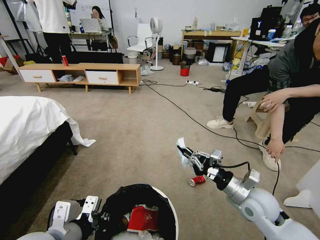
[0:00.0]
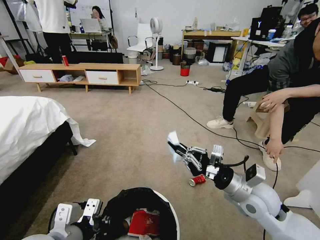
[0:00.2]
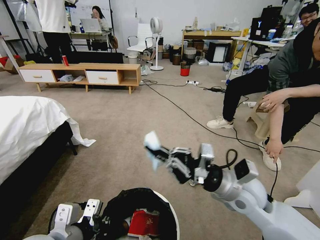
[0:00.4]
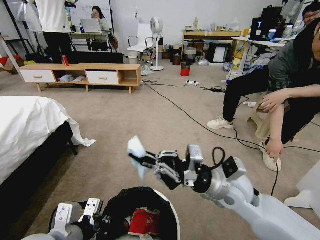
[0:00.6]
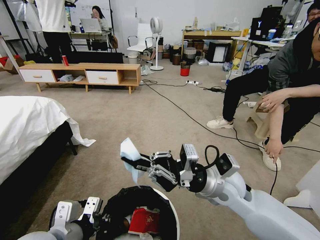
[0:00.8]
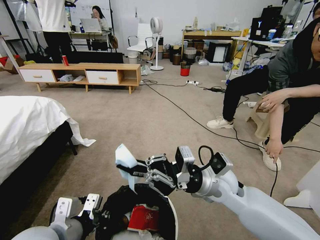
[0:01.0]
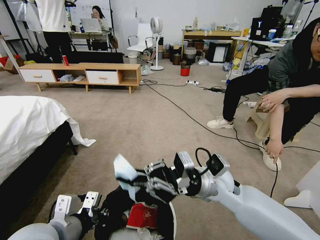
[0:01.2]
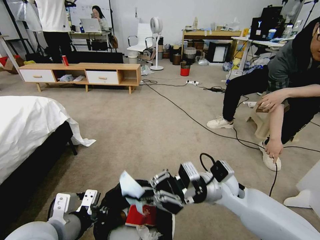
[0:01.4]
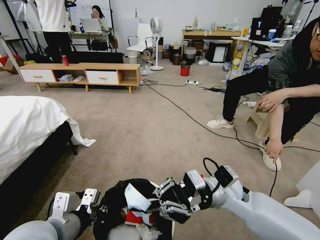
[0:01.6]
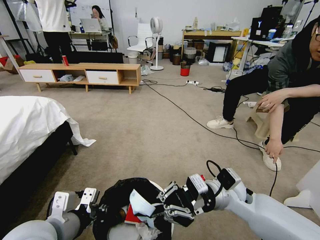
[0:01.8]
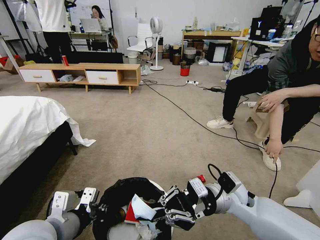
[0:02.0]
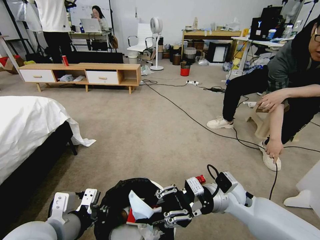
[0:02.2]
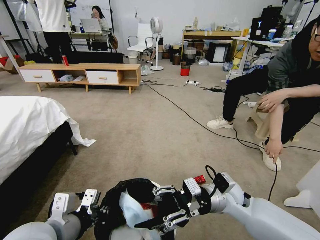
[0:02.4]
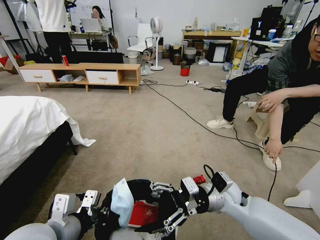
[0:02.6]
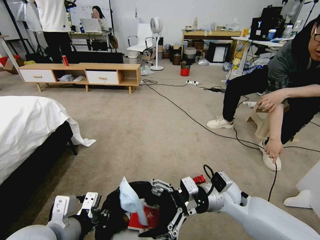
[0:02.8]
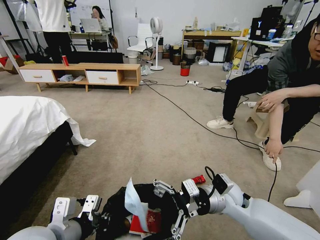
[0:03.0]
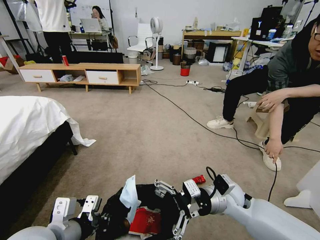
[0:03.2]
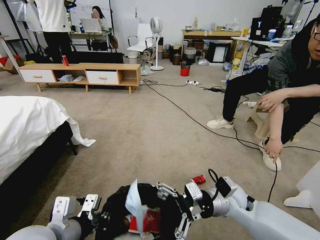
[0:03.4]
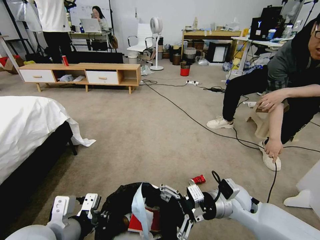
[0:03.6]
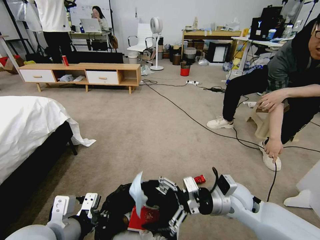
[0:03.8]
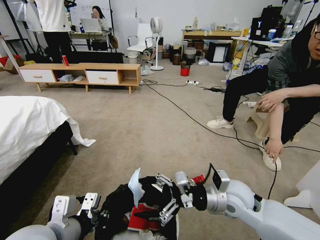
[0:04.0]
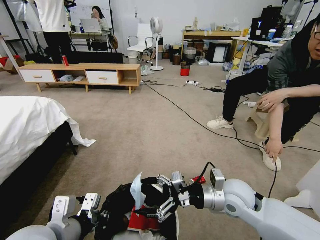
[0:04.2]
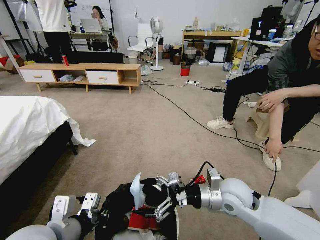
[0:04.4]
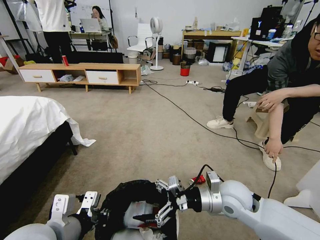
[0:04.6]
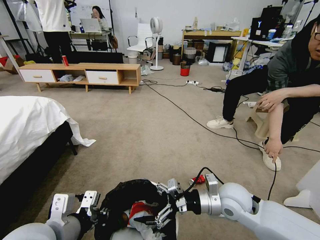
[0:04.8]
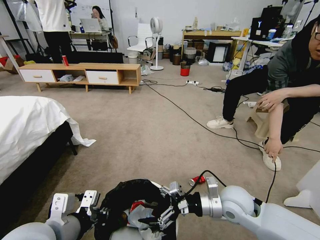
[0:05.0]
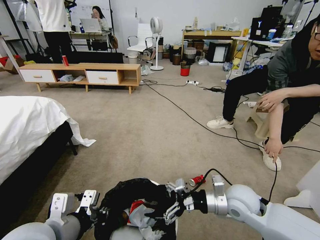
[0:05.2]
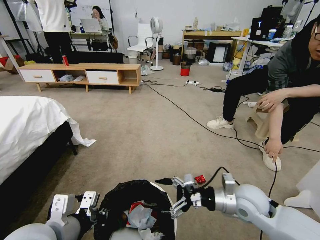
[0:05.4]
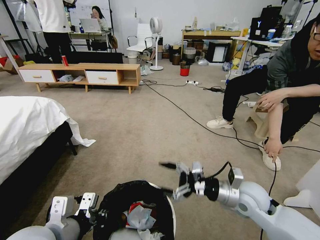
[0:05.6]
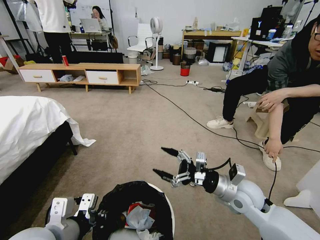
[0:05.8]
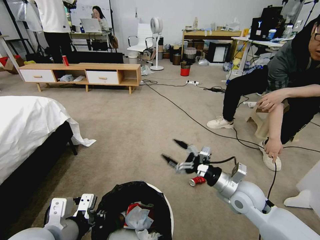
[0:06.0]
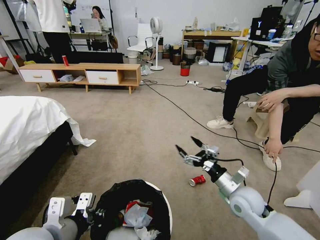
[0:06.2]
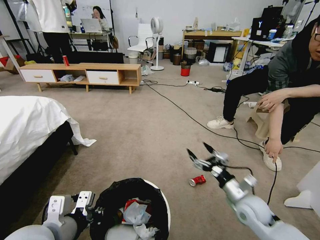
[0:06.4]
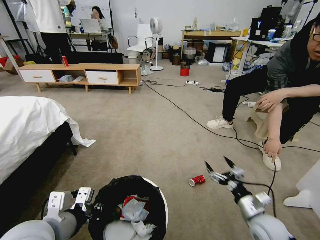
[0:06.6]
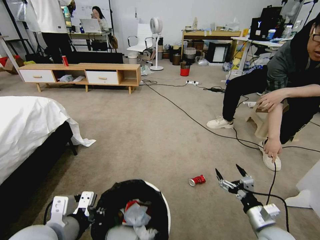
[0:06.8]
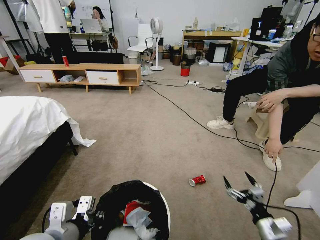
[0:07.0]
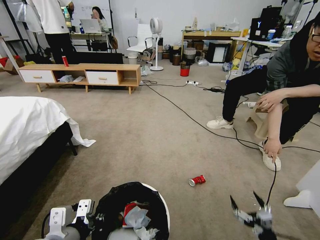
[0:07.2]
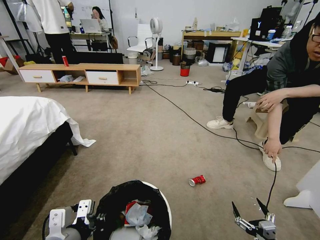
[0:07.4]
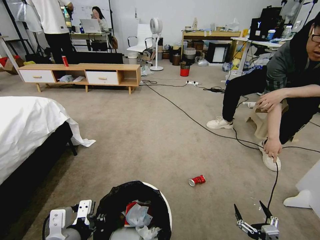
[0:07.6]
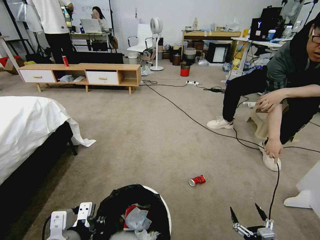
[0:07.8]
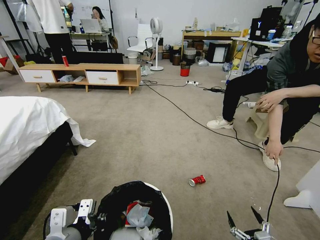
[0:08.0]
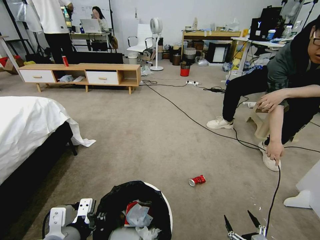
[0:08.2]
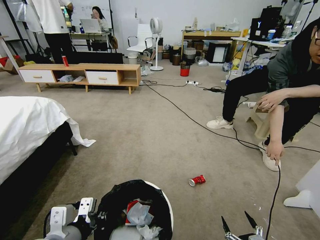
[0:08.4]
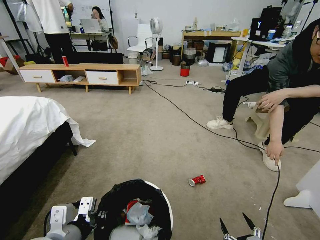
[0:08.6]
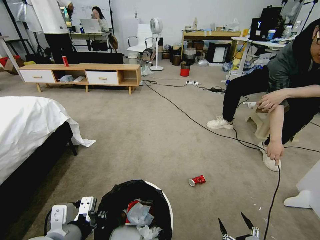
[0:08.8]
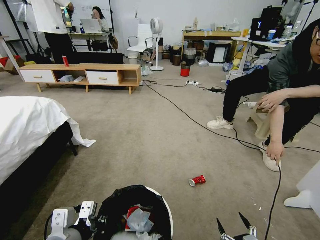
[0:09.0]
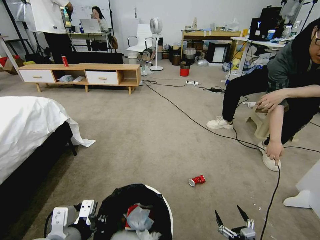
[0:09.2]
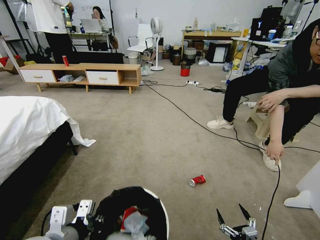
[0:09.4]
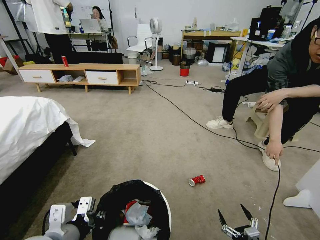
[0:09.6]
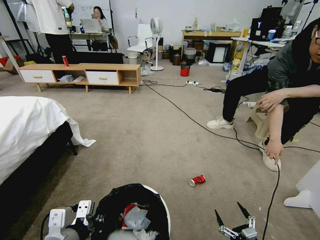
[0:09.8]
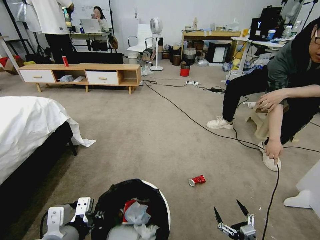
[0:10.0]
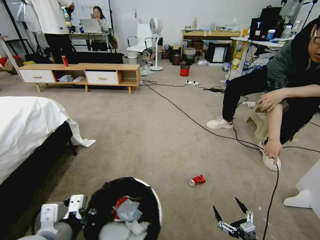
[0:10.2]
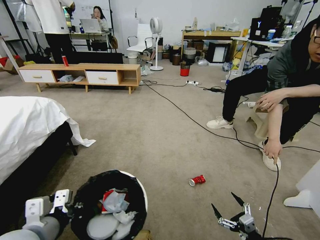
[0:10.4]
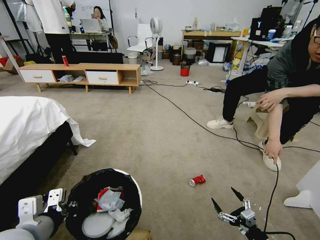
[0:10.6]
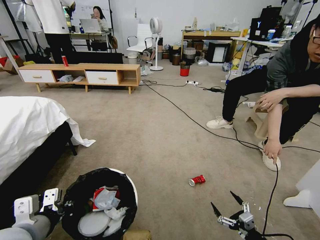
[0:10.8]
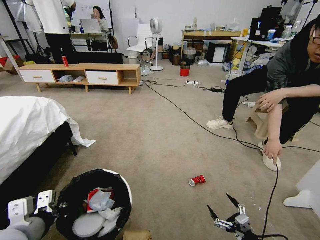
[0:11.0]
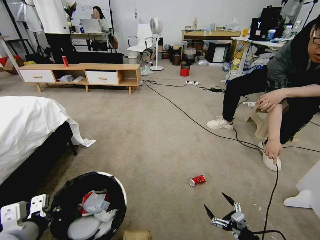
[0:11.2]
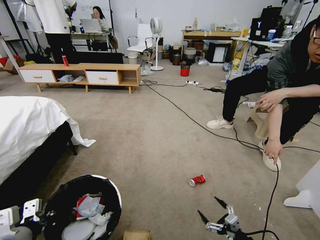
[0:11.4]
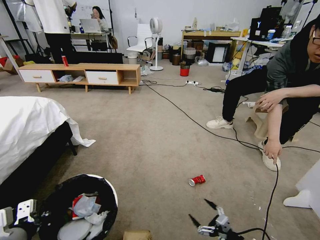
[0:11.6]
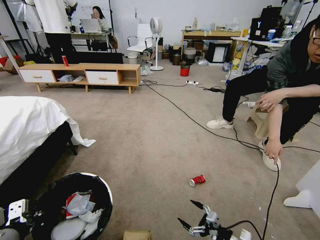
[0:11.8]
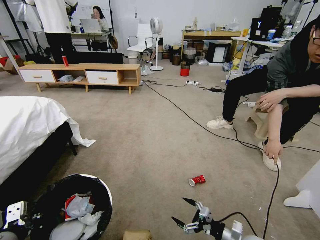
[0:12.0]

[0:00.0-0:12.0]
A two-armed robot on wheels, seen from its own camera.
Task of the whole recording: Pick up the trash bin and place the garbage on the floor into it.
0:00.0 to 0:01.6: The right gripper goes some 10 cm to the left.
0:01.6 to 0:03.0: The right gripper opens its fingers.
0:04.4 to 0:06.0: The right gripper shifts by about 5 cm.
0:06.0 to 0:07.6: The right gripper heads backward, downward and to the right, covering approximately 30 cm.
0:07.6 to 0:09.0: The right gripper moves some 5 cm.
0:09.0 to 0:10.4: The right gripper shifts approximately 5 cm forward.
0:10.4 to 0:12.0: The right gripper heads forward and to the left, covering about 10 cm; the left gripper travels to the left by about 5 cm.

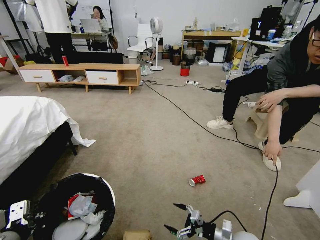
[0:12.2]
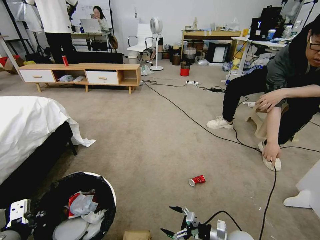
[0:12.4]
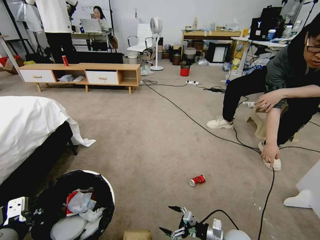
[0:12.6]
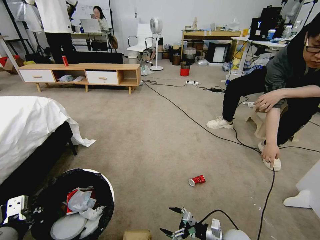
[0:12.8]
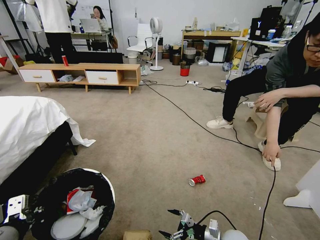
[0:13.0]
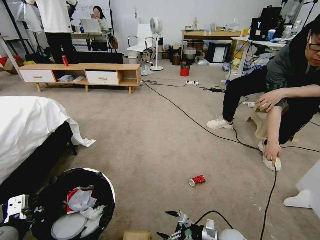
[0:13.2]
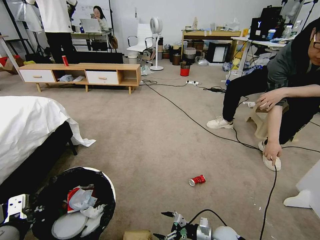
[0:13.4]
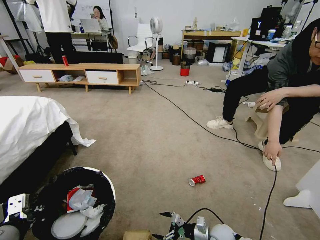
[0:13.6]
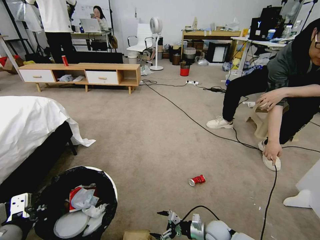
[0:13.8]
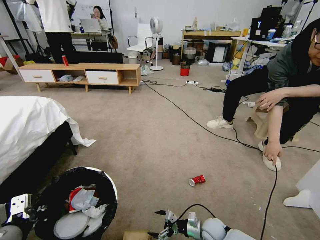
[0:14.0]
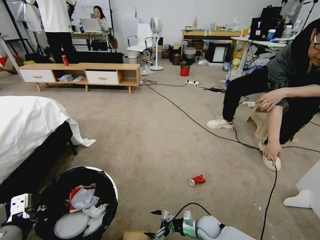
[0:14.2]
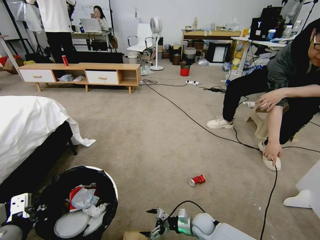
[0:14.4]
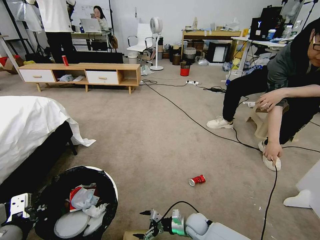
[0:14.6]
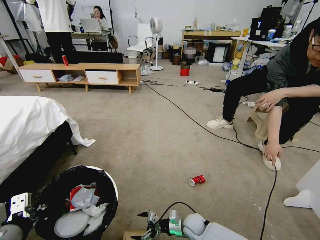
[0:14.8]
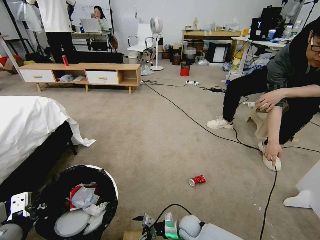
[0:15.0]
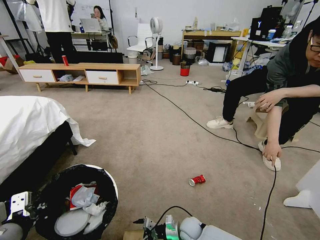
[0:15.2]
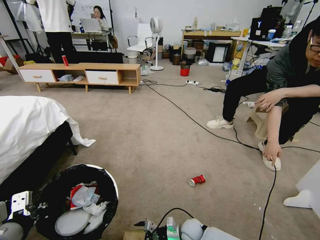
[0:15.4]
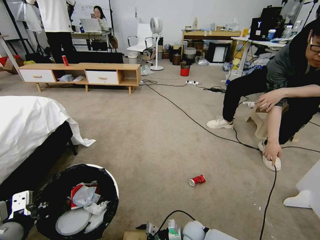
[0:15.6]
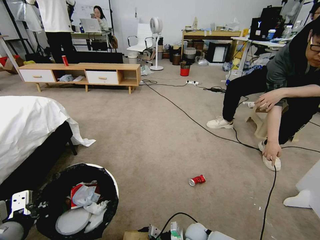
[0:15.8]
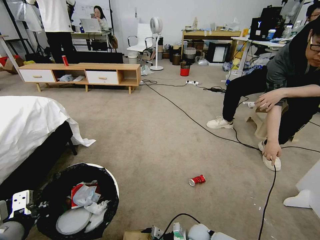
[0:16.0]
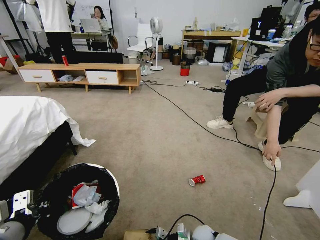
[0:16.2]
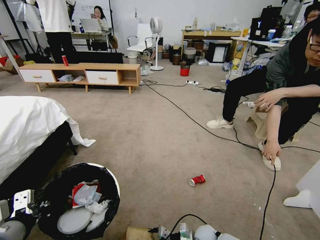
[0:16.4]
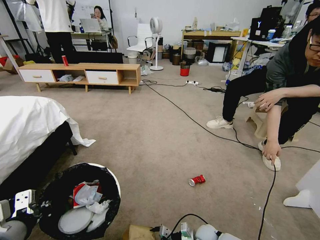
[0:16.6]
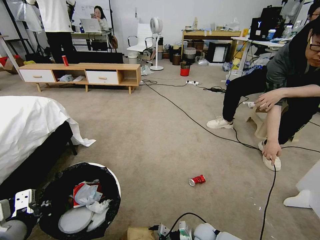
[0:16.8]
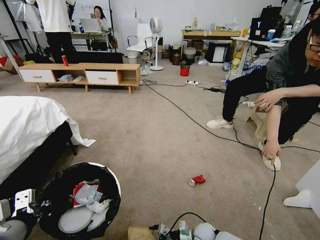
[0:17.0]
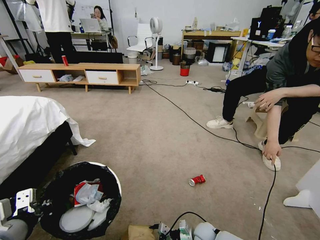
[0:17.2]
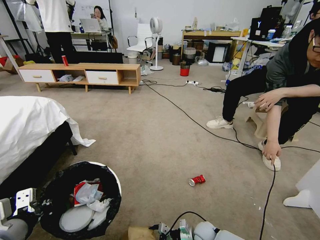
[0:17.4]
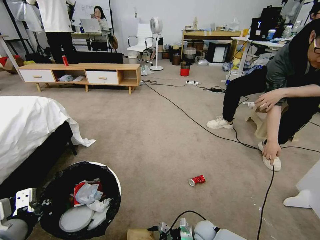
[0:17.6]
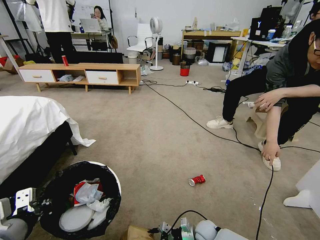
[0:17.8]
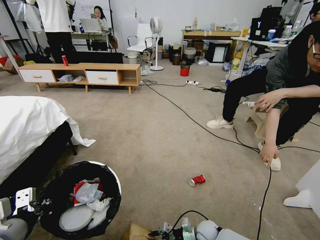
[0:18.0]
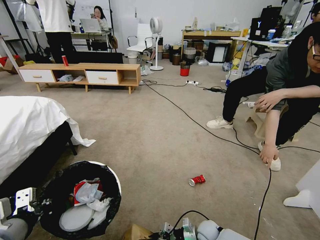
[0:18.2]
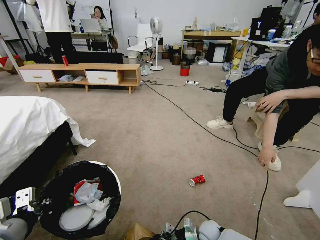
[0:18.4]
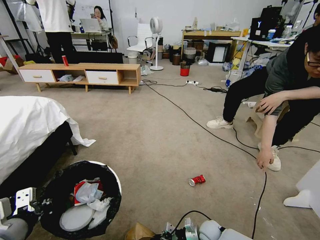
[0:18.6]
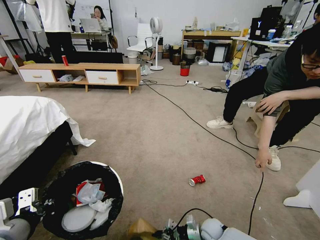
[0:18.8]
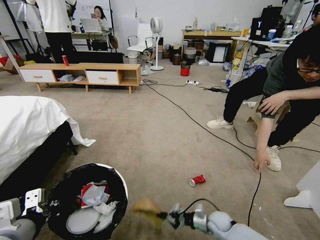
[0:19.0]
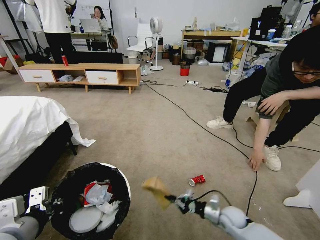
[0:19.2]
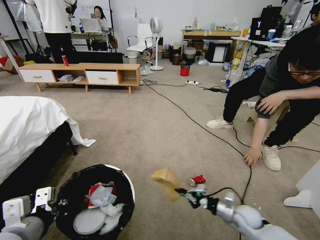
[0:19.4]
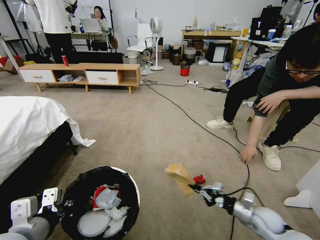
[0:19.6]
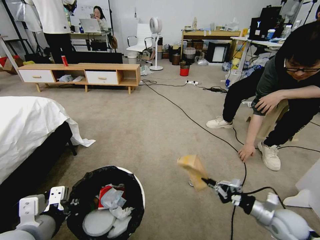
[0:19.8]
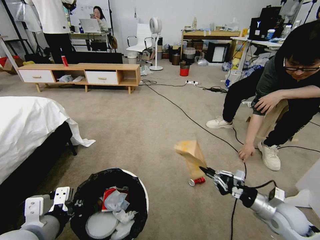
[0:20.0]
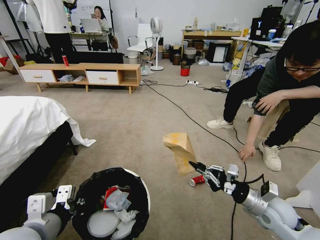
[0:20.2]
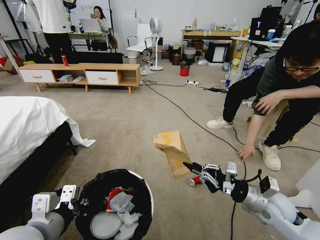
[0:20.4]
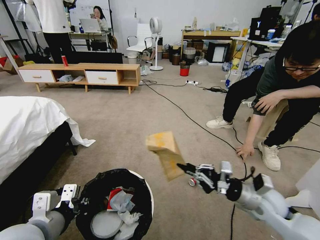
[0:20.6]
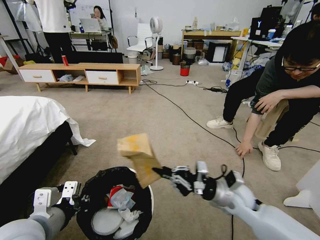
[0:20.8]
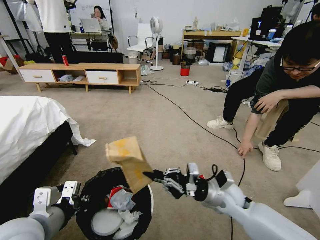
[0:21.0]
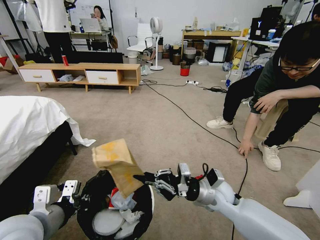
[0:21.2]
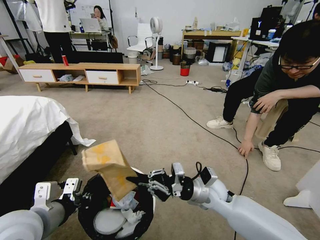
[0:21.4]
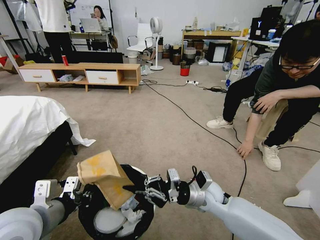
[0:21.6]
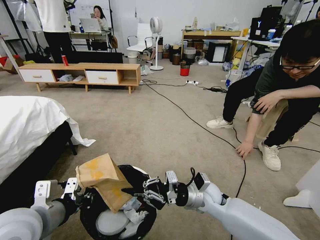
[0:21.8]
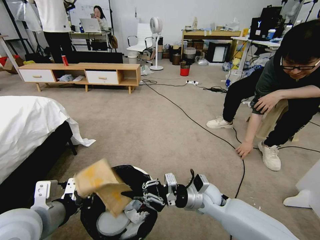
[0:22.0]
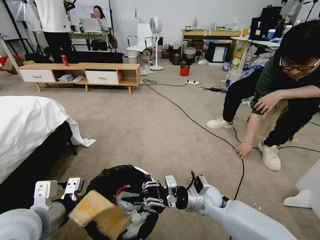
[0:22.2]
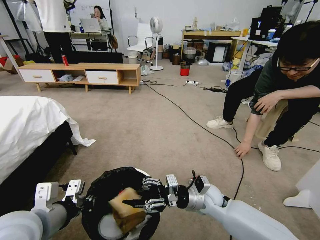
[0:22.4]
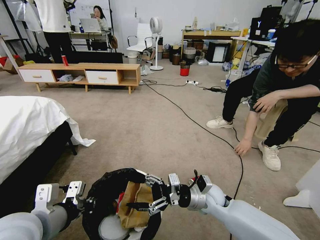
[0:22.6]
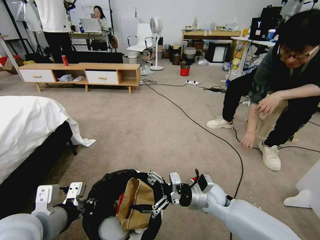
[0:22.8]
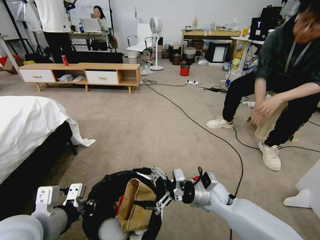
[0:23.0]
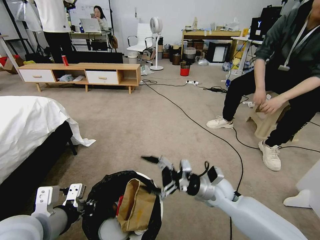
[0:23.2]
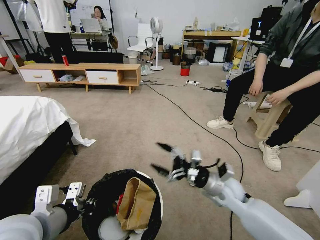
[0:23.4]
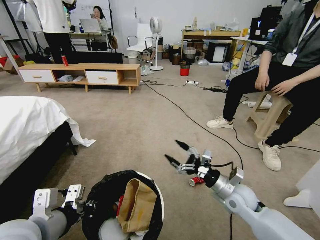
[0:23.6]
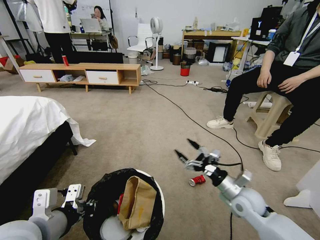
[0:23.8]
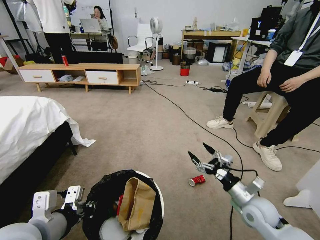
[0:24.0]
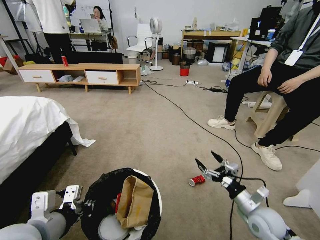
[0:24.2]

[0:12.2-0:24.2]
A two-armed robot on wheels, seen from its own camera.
Task of the whole recording: Pick up the trash bin and place the garbage on the floor into it.
0:12.2 to 0:13.8: The right gripper goes approximately 10 cm to the left, downward and forward.
0:13.8 to 0:15.2: The right gripper heads to the left, covering approximately 10 cm.
0:15.2 to 0:16.6: The right gripper goes approximately 5 cm to the right.
0:16.6 to 0:18.2: The right gripper closes up.
0:18.2 to 0:19.8: The right gripper moves upward and to the right, some 30 cm.
0:19.8 to 0:21.2: The right gripper heads to the left, covering approximately 25 cm.
0:21.2 to 0:22.6: The right gripper opens up.
0:22.6 to 0:24.2: The right gripper goes approximately 15 cm to the right.
